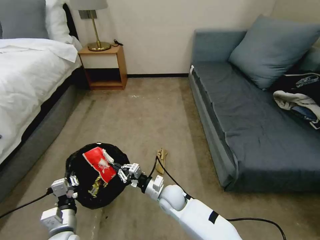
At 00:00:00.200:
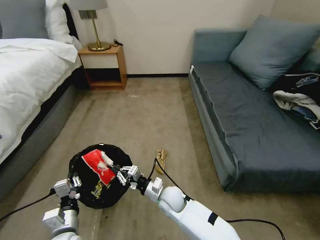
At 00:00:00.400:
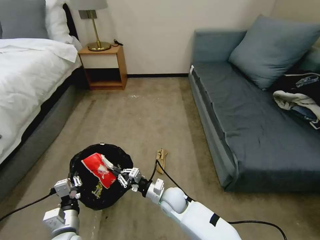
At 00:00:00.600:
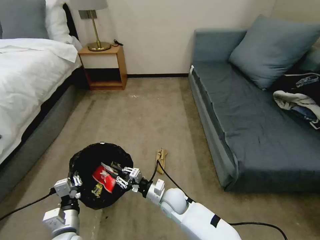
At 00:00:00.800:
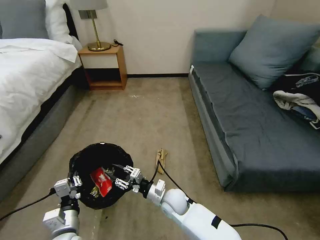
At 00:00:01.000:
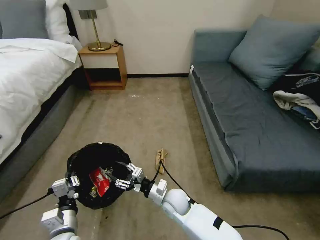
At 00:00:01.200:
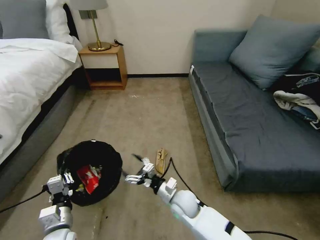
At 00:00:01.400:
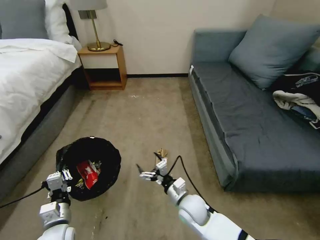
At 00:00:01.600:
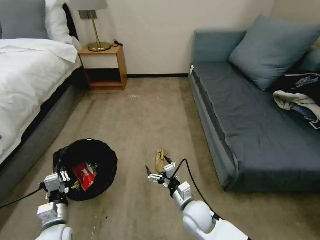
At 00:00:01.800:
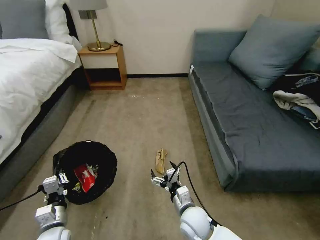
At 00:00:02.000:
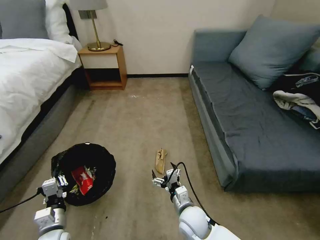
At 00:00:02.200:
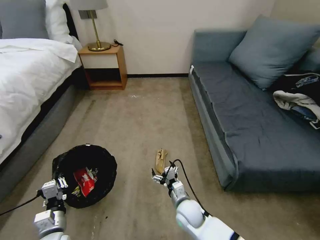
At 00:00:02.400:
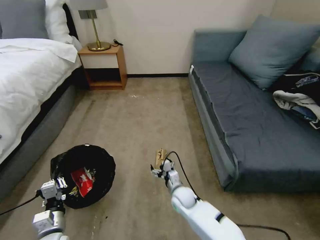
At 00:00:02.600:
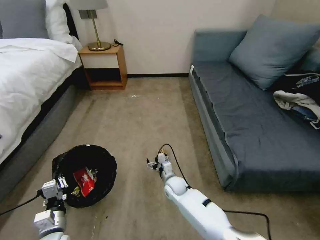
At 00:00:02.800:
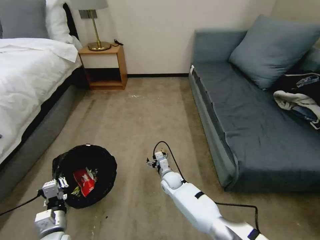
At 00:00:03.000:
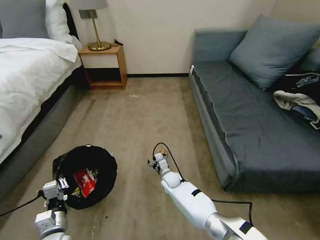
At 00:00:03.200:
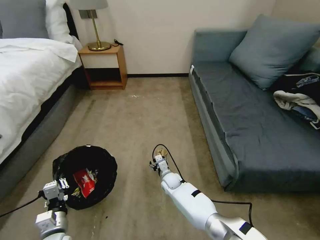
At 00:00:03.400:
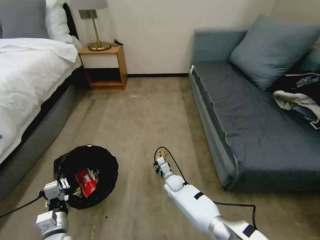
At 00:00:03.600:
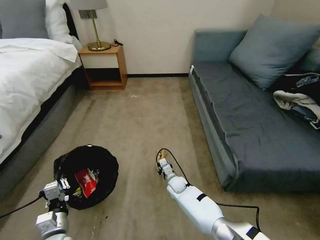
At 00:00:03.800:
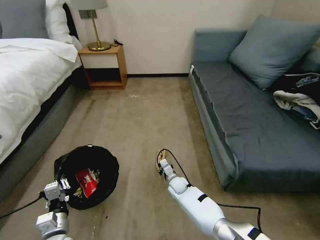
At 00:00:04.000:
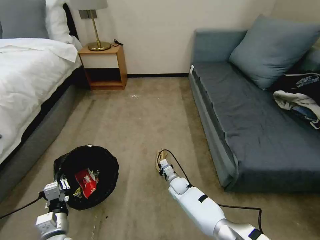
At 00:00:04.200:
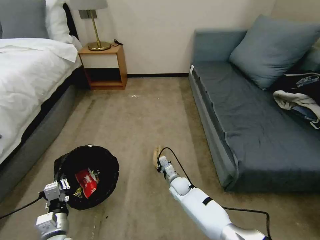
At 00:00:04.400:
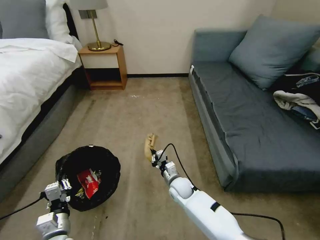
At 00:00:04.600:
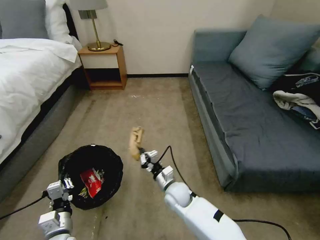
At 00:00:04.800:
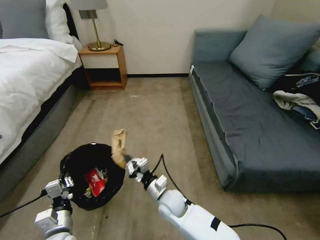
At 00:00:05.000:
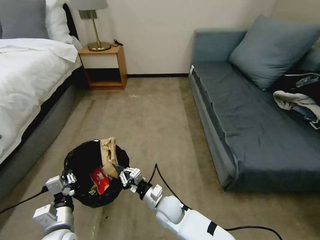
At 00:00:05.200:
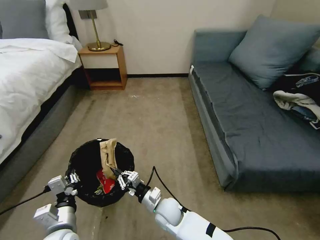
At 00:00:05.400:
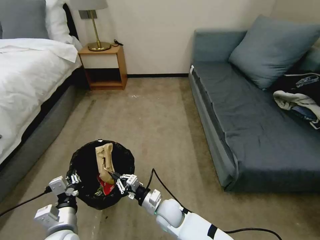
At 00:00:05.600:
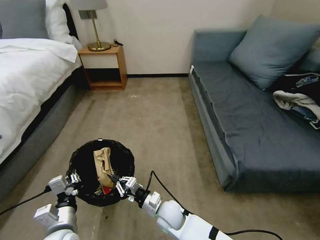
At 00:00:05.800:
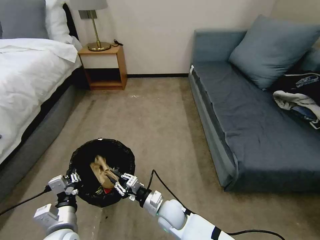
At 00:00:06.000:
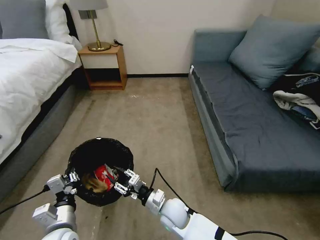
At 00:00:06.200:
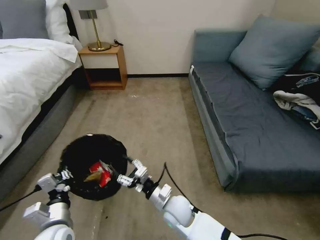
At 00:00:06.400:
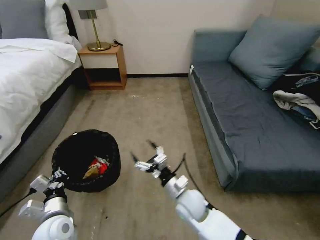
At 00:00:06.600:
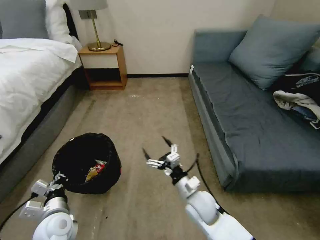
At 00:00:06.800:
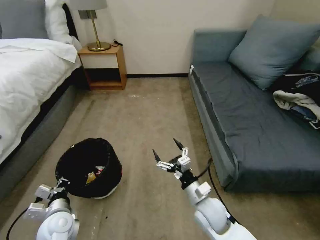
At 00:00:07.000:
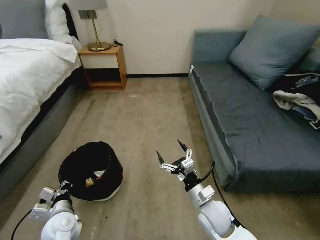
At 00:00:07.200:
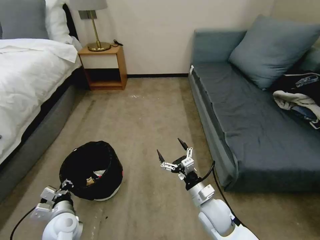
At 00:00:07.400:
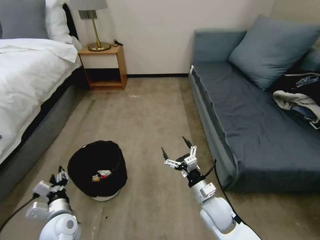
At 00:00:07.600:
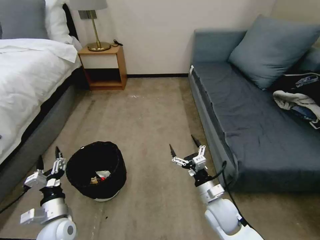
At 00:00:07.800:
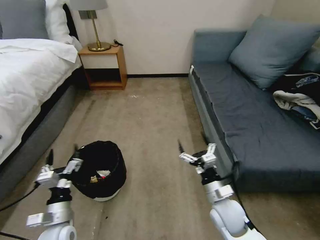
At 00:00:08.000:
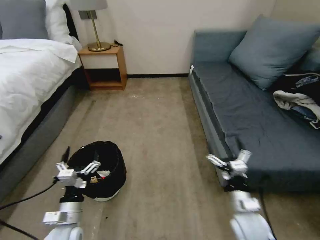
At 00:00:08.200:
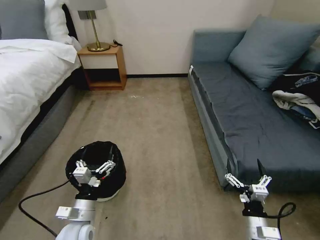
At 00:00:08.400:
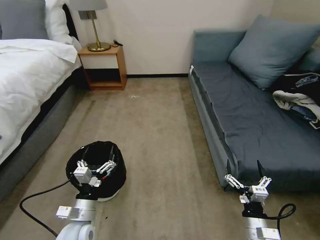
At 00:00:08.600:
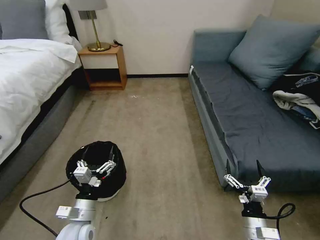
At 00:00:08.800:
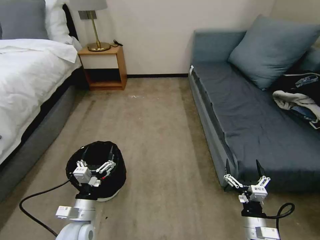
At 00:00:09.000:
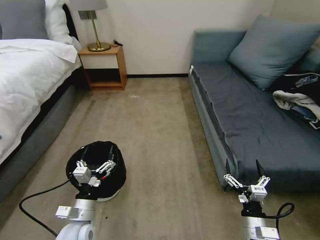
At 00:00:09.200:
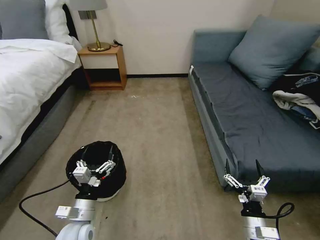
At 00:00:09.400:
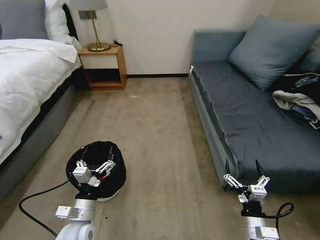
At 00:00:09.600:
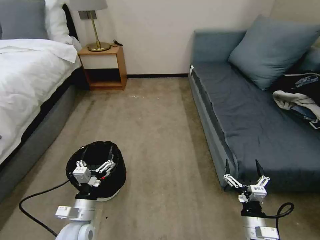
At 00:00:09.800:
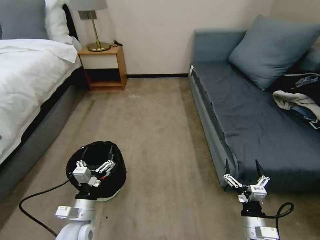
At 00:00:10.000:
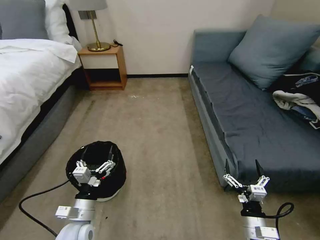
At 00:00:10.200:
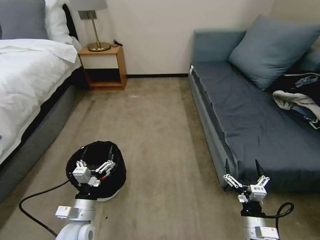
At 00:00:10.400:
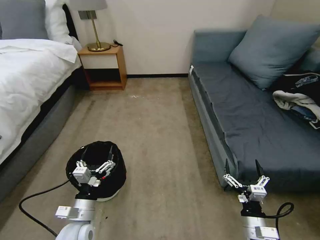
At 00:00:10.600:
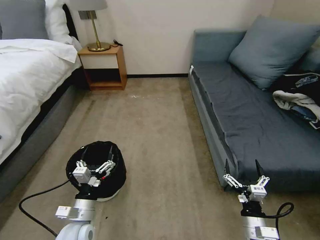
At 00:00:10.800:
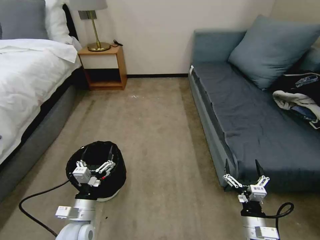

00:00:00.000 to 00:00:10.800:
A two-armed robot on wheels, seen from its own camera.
Task of the whole recording: Pick up the trash bin, then pick up the garbage on the floor and place it into the trash bin.
00:00:00.000 to 00:00:01.600: The right gripper moves to the right, about 5 cm, and opens its fingers.
00:00:01.600 to 00:00:03.000: The right gripper shifts some 20 cm forward, downward and to the left.
00:00:03.000 to 00:00:04.600: The right gripper moves upward and backward, some 10 cm, and closes up.
00:00:04.600 to 00:00:06.200: The right gripper is displaced backward by approximately 5 cm, and opens up, while the left gripper travels upward by approximately 5 cm.
00:00:06.200 to 00:00:07.800: The right gripper moves to the right, approximately 15 cm, and opens up; the left gripper opens up.
00:00:07.800 to 00:00:09.200: The left gripper is displaced to the right by approximately 5 cm. Meanwhile the right gripper goes roughly 15 cm backward and to the right.
00:00:09.200 to 00:00:10.800: Both grippers stay put.

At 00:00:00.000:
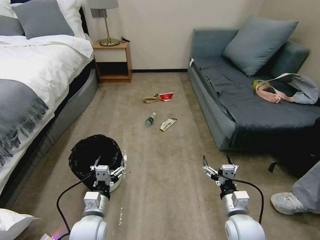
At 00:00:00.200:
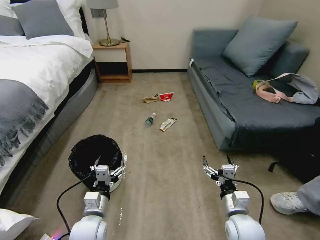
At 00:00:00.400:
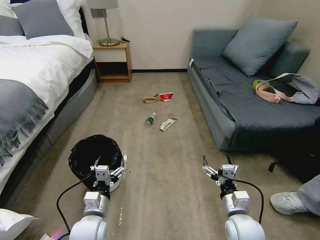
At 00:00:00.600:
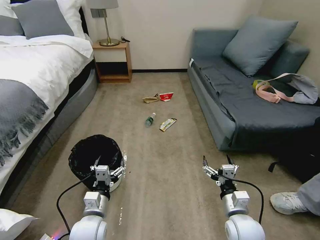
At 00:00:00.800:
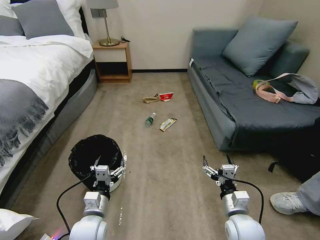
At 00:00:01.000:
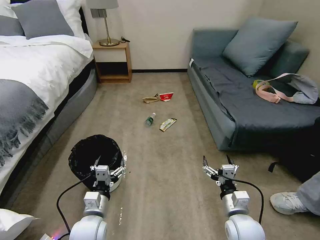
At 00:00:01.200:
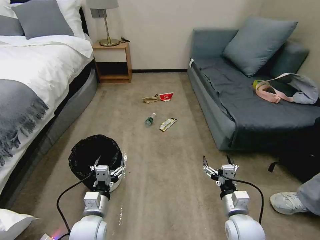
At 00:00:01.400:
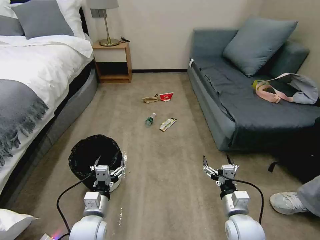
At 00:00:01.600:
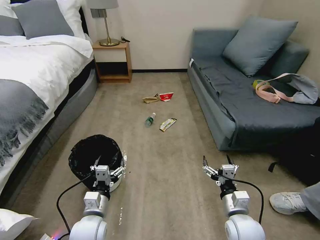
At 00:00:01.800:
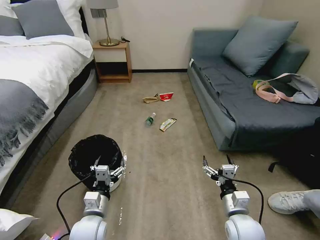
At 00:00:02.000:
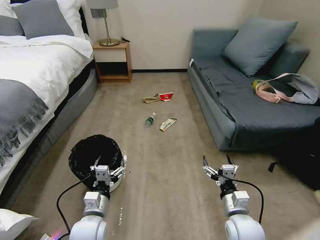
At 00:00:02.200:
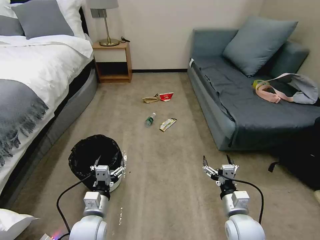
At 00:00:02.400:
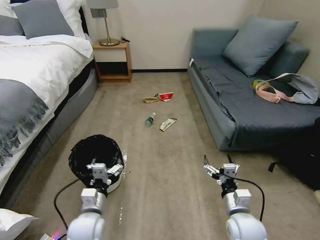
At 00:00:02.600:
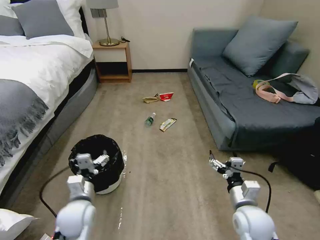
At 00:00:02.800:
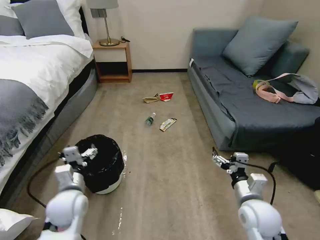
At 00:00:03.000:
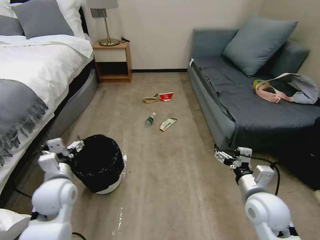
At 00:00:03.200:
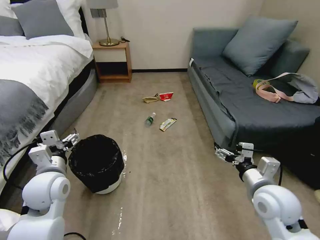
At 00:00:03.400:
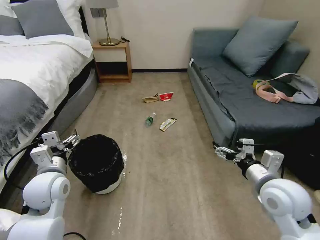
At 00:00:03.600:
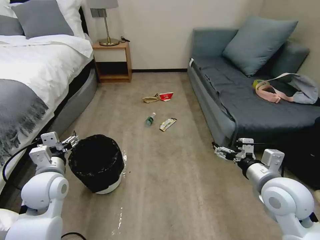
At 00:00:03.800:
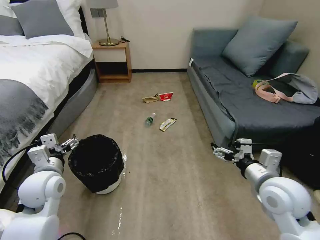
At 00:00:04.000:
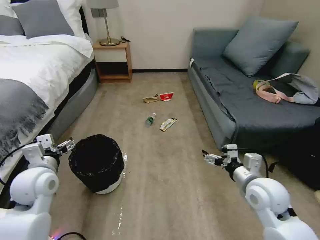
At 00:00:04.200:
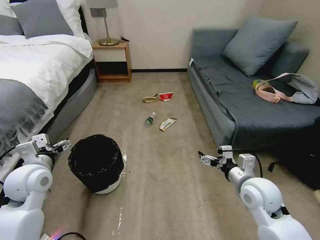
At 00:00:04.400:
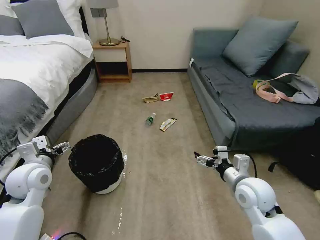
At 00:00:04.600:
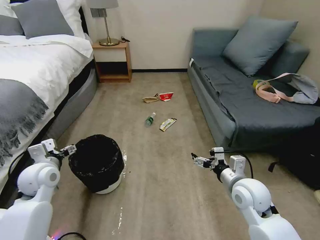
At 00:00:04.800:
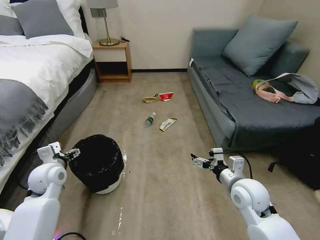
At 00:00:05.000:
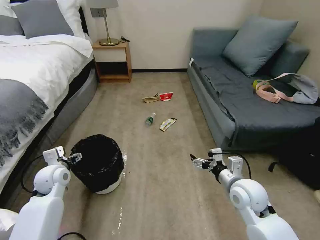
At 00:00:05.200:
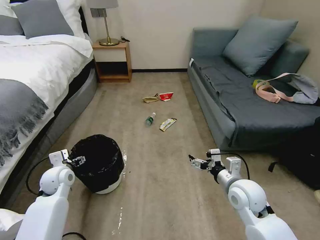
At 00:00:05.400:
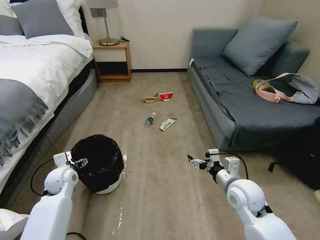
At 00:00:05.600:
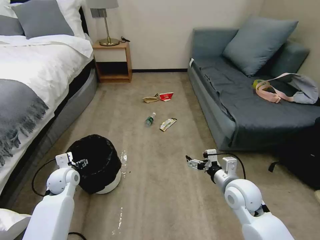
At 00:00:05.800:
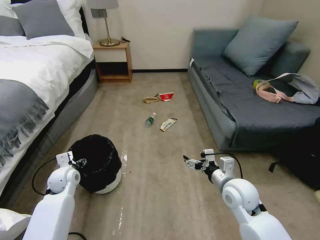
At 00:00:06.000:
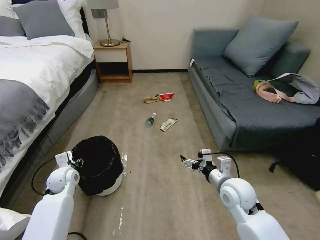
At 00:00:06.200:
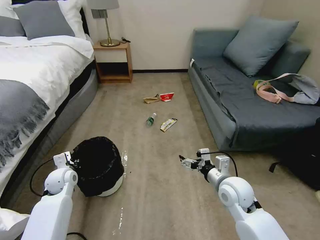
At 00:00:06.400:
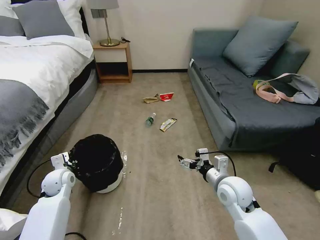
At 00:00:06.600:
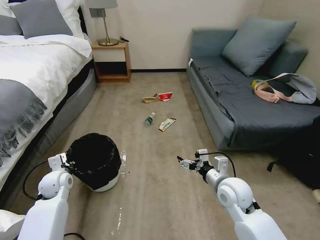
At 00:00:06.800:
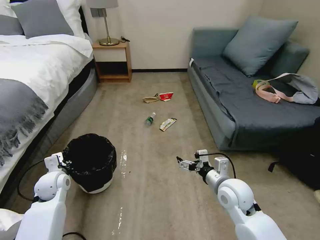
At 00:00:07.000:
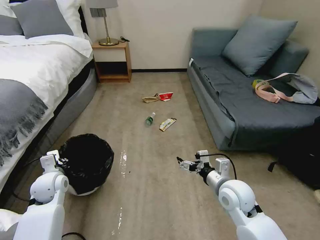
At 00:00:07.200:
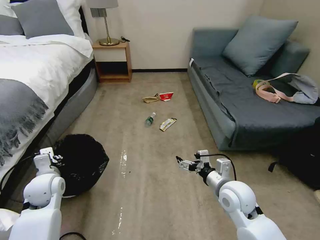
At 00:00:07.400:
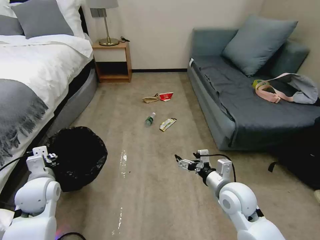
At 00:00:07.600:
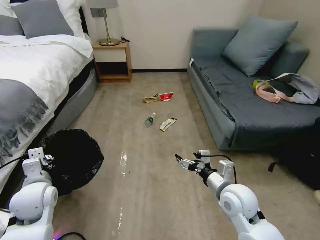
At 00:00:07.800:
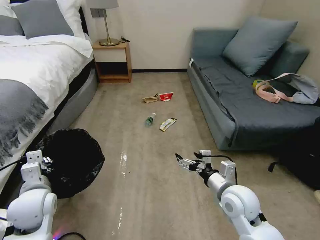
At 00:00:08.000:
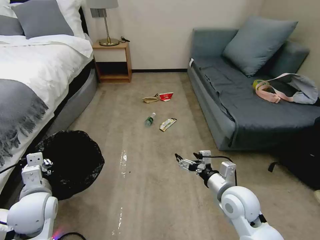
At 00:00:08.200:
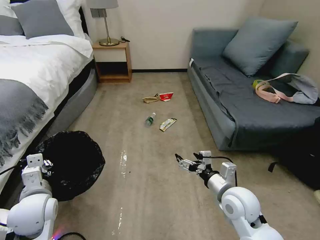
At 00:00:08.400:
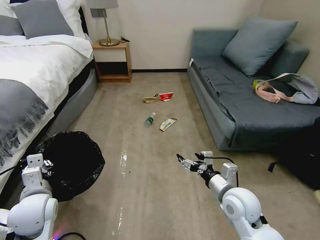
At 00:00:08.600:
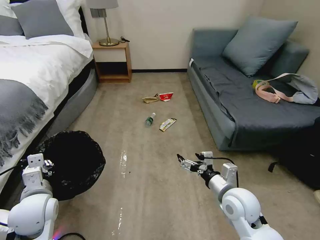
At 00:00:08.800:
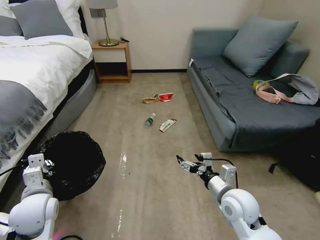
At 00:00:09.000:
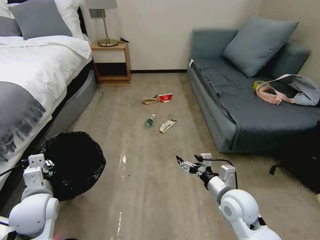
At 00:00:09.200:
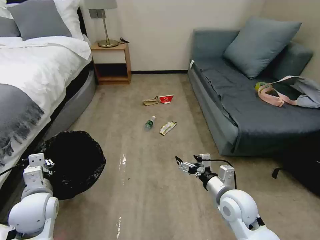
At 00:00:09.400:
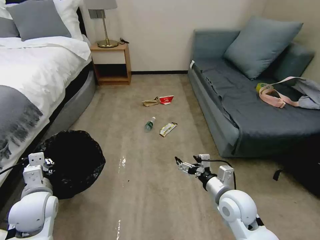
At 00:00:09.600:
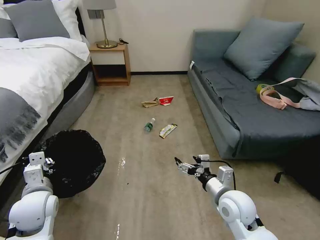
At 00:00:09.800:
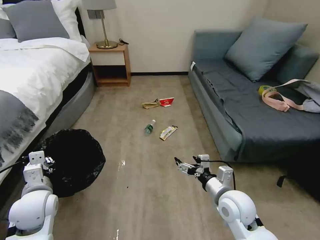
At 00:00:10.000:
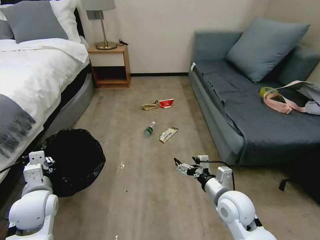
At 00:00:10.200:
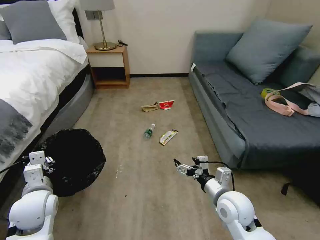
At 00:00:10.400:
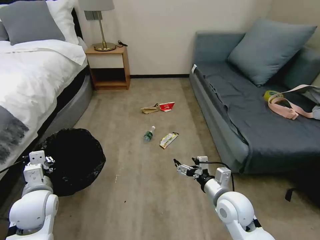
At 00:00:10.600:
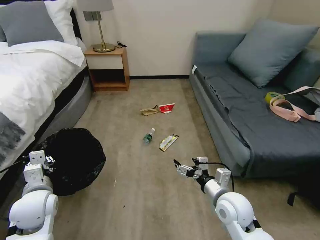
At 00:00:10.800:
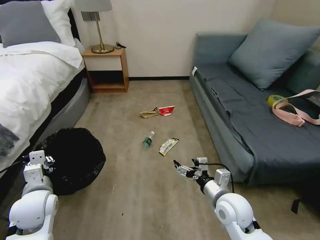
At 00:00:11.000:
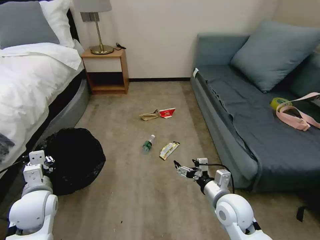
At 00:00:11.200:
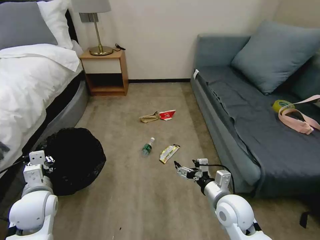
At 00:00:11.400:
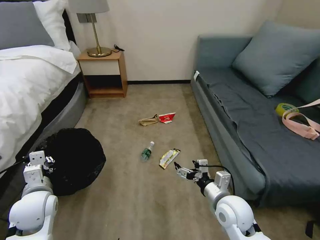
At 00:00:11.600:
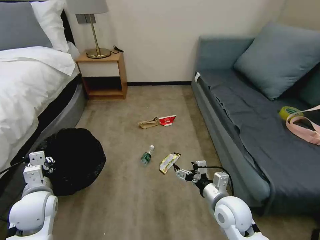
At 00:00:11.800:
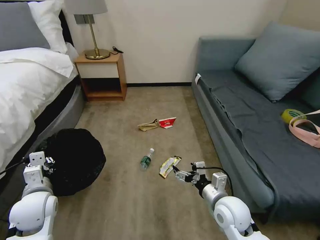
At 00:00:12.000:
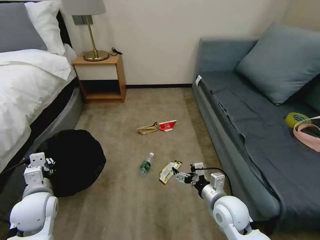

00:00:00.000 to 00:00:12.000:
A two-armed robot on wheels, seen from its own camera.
Task of the whole recording: Pick up the trash bin, then pick up the garbage on the floor and place it into the trash bin.
00:00:01.600 to 00:00:03.000: The left gripper is displaced upward, to the left and forward by some 15 cm, while the right gripper goes some 10 cm upward.
00:00:03.000 to 00:00:04.400: The left gripper is displaced to the left by about 5 cm.
00:00:04.400 to 00:00:06.000: The left gripper goes about 15 cm downward and forward, and closes its fingers.
00:00:06.000 to 00:00:07.600: The left gripper travels backward and upward by some 15 cm, and closes.
00:00:07.600 to 00:00:09.000: The grippers make only small movements.
